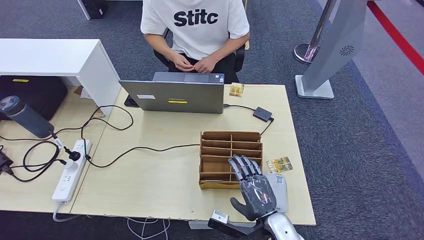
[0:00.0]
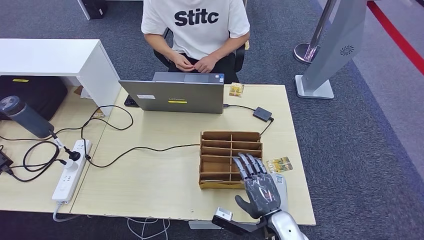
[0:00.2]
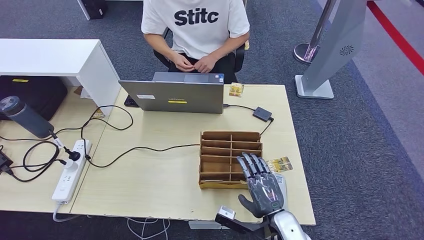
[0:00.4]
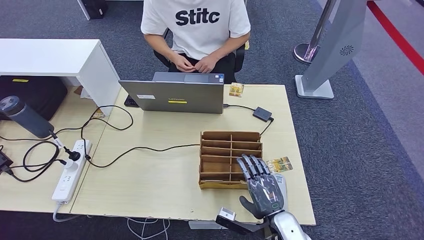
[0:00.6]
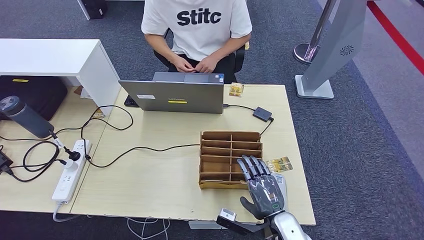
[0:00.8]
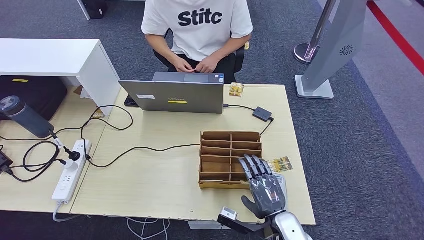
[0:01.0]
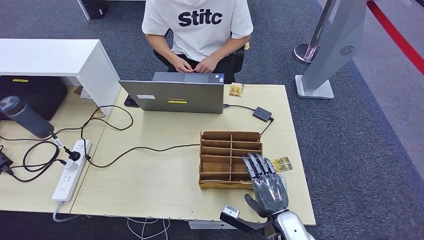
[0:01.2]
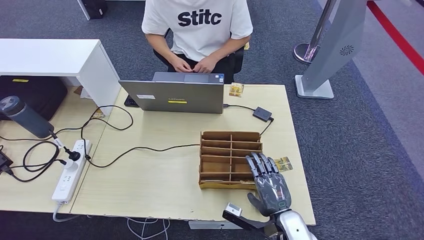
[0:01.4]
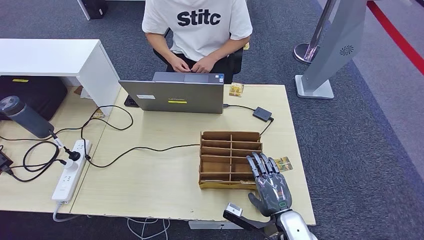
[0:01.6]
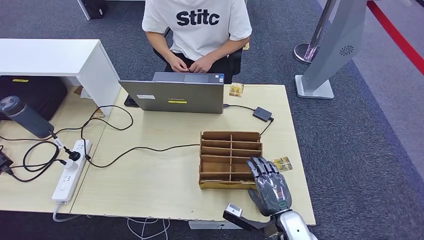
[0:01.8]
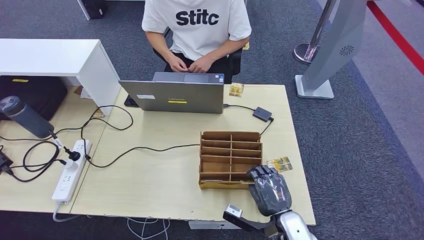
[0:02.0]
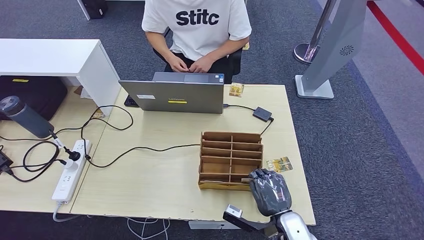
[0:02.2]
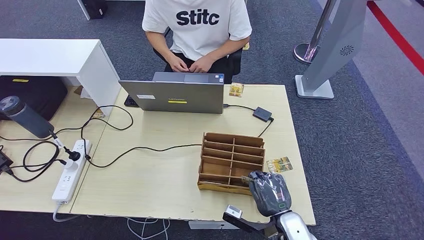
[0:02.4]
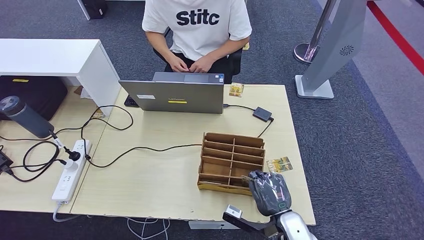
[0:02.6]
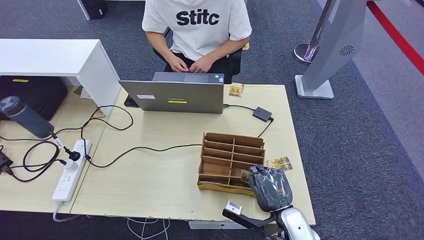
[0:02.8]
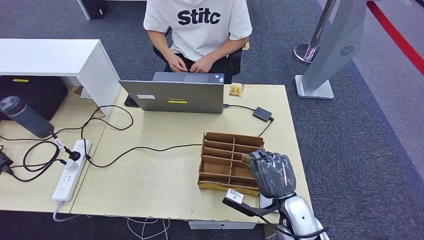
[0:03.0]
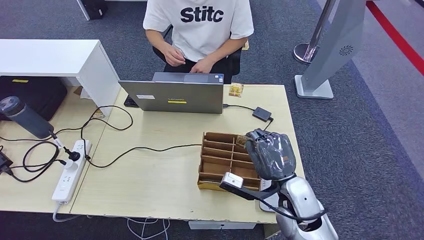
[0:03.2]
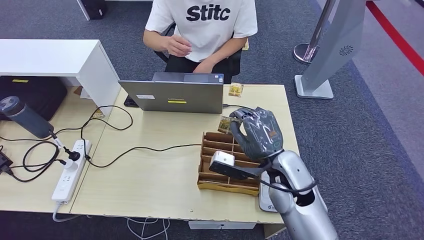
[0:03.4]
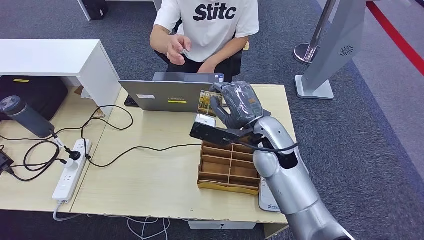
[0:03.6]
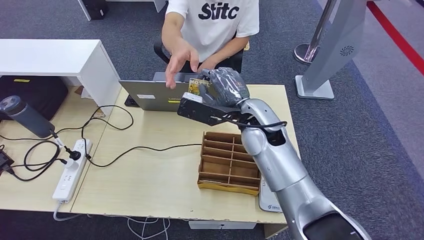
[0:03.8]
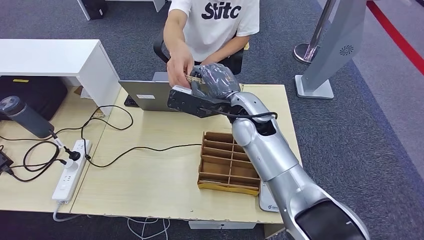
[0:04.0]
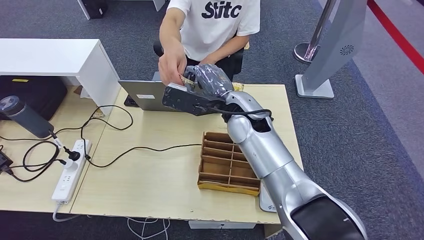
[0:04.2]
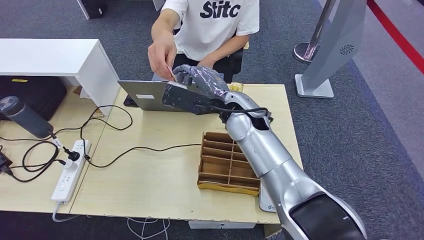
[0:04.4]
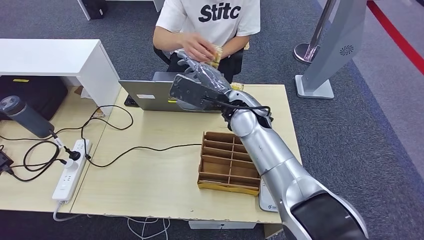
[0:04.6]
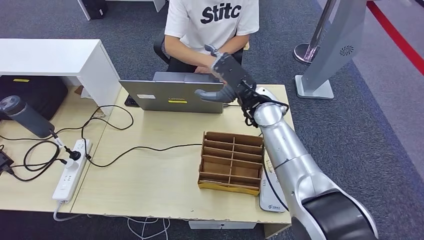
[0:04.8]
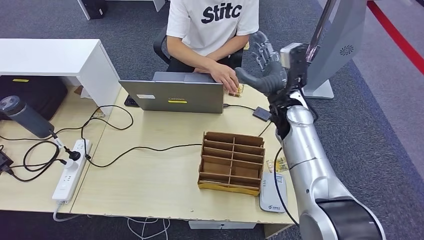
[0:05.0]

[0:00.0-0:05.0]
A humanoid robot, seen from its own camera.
Step, 0:00.0 to 0:02.8: Pick up the room key from the key card box.
Step, 0:03.0 to 0:05.0: Hand the room key to the person.
0:00.0 to 0:01.6: The hands make only small movements.
0:01.6 to 0:03.4: The right hand moves upward and forward, roughly 20 cm.
0:03.4 to 0:05.0: The right hand moves forward, about 15 cm.
